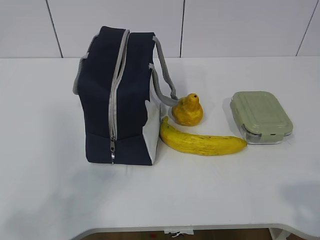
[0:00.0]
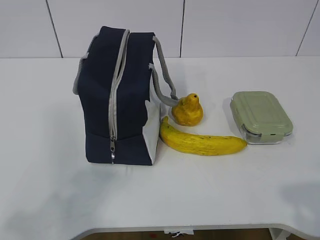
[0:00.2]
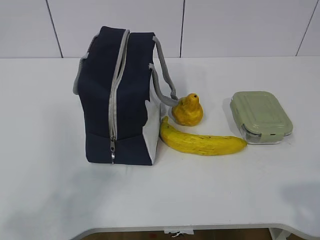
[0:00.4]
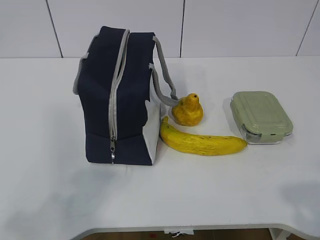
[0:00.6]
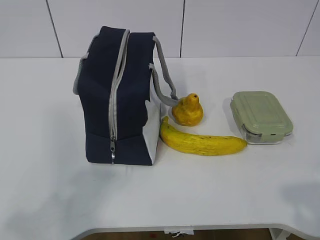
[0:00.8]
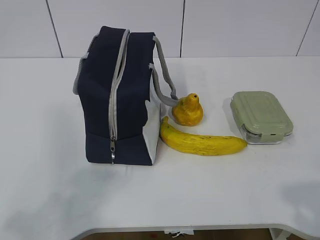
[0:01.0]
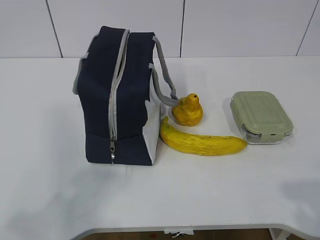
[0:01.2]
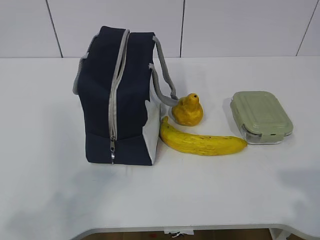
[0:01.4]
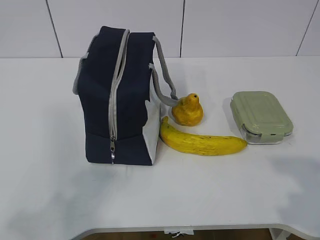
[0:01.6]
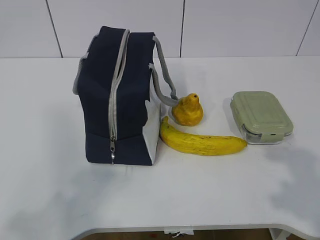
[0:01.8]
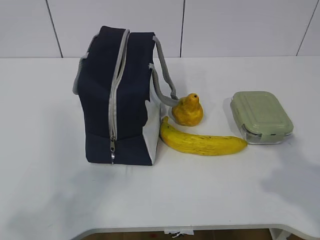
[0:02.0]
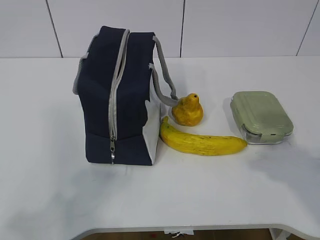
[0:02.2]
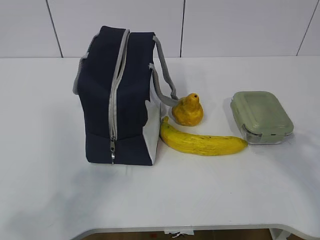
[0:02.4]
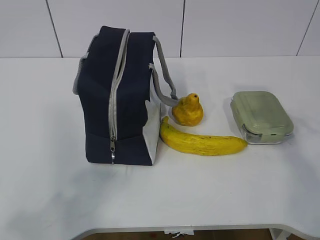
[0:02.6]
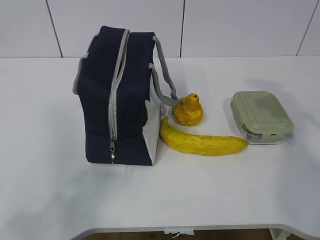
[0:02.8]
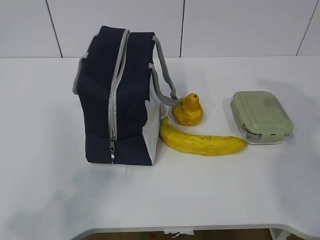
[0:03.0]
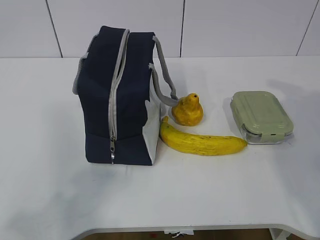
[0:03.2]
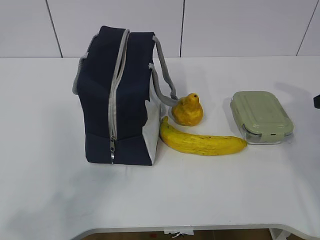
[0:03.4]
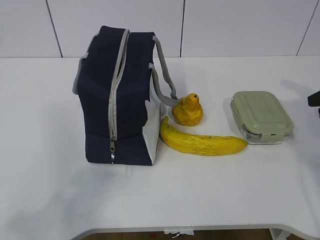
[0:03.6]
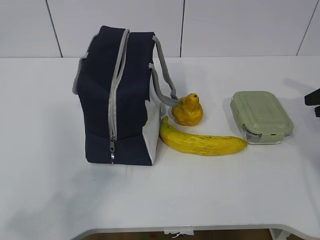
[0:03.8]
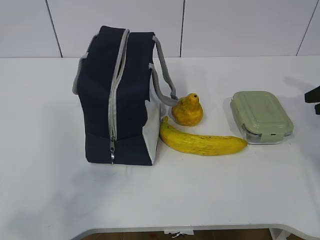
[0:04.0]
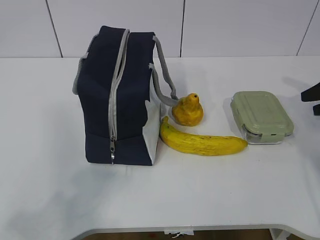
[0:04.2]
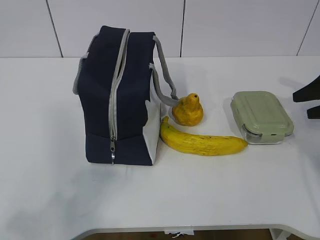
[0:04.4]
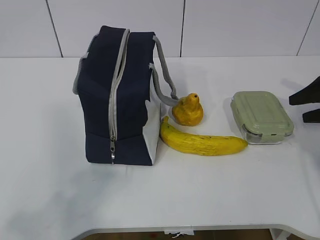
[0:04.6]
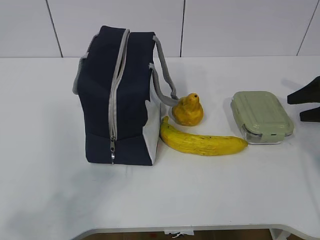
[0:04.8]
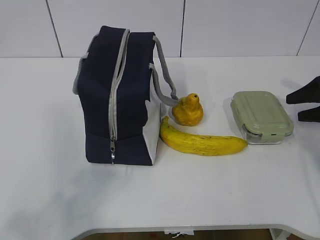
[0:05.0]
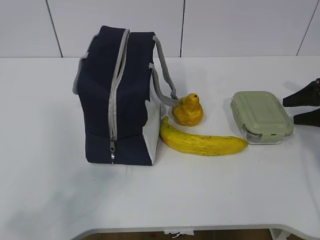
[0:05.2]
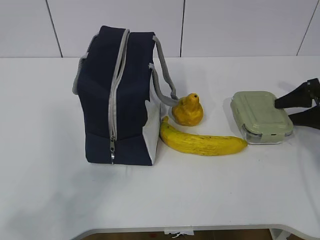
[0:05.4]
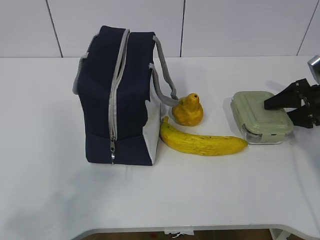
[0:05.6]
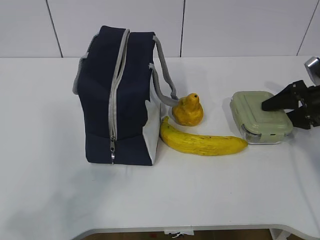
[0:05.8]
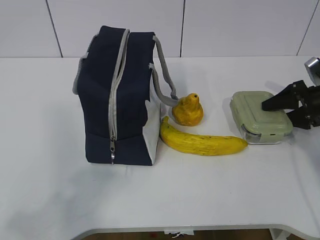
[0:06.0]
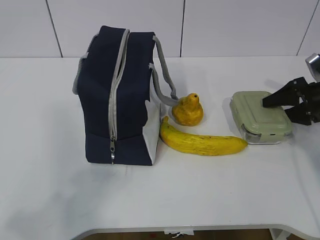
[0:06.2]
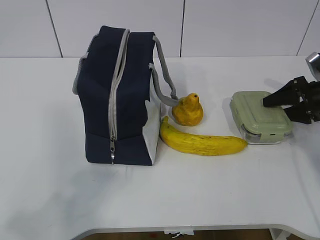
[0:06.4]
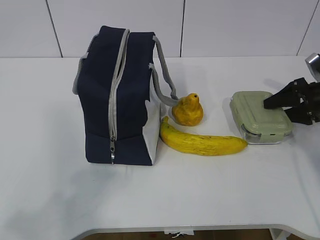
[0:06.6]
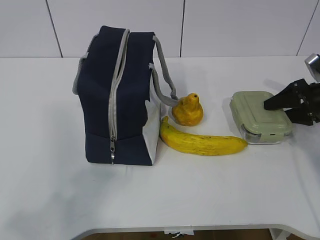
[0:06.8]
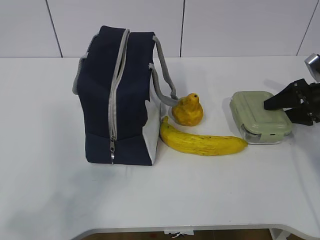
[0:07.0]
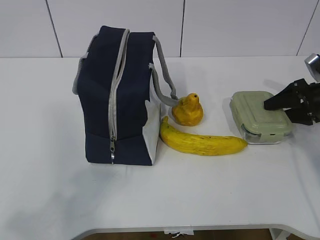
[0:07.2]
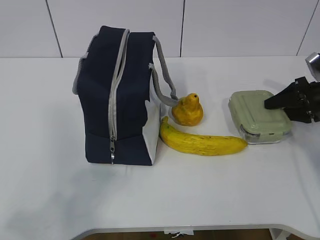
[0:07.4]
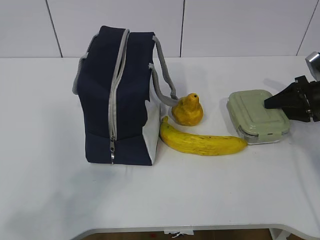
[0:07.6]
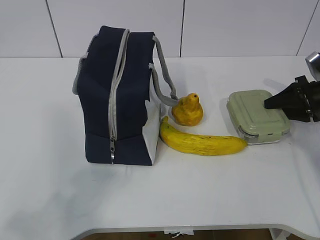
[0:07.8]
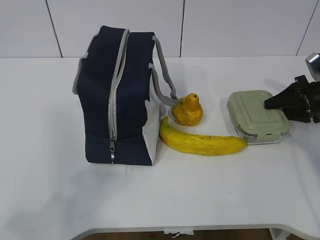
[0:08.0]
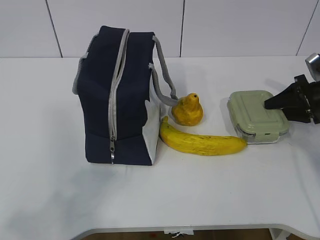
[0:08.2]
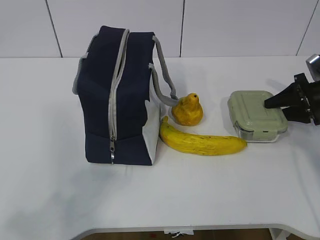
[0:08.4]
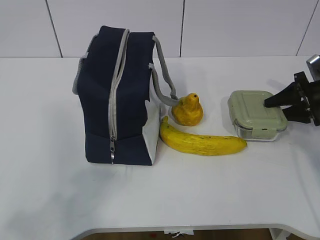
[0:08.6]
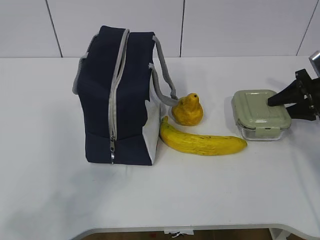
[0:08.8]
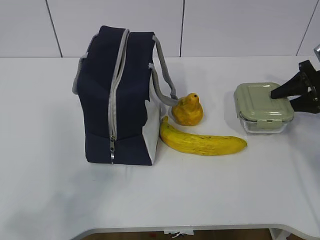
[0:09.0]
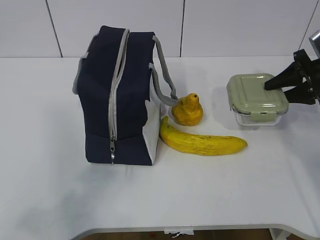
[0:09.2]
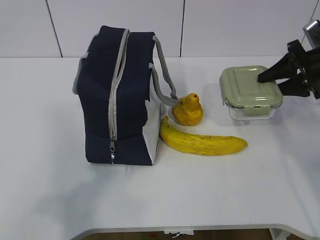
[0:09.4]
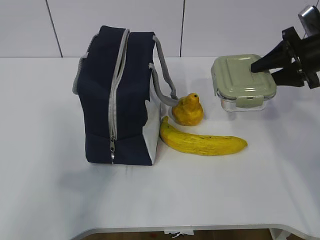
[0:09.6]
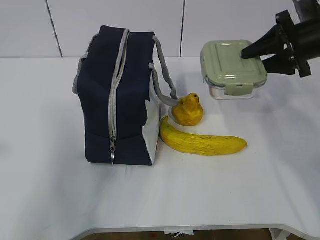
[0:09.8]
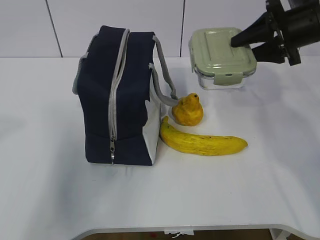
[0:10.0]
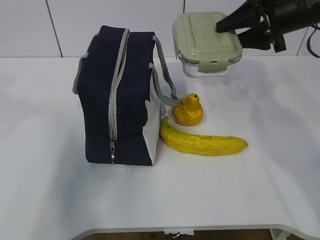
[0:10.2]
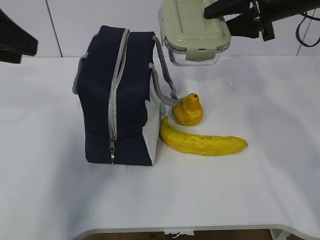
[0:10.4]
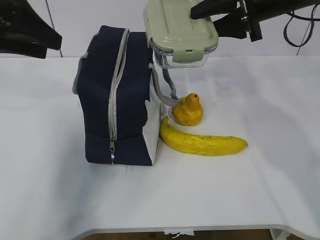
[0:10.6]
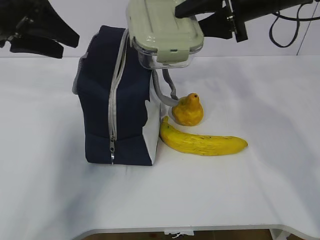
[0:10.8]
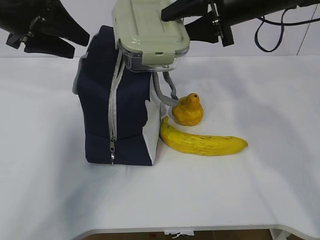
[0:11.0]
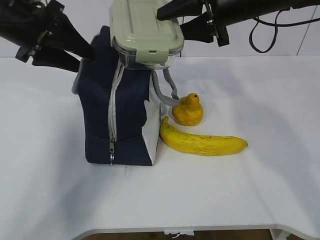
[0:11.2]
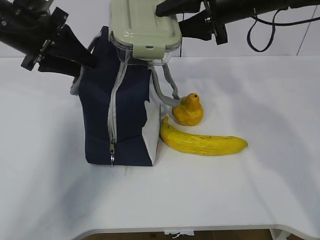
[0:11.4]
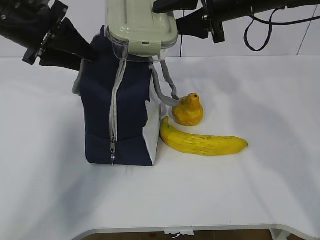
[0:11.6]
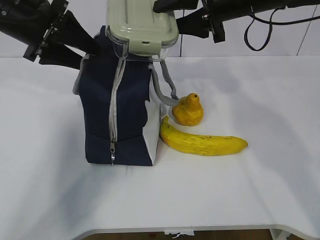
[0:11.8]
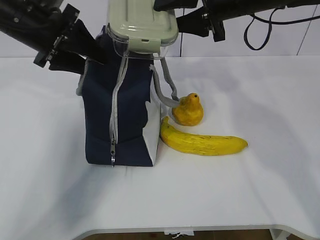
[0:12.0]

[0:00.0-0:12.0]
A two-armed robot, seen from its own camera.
Step, 0:00.0 to 0:07.4: Grasp the box with the right gripper.
0:01.6 to 0:03.0: The right gripper shifts some 25 cm forward.
0:03.0 to 0:04.4: The right gripper goes some 15 cm downward, forward and to the right.
0:04.4 to 0:06.0: The right gripper ends up roughly 5 cm from where it was.
0:06.0 to 0:07.6: Both grippers stay put.
0:07.6 to 0:09.0: The grippers move only a little.
0:09.0 to 0:10.4: The left gripper goes roughly 25 cm forward. Meanwhile the right gripper heads to the left and upward, covering roughly 20 cm.
0:10.4 to 0:12.0: The left gripper goes approximately 15 cm forward and downward. Meanwhile the right gripper moves to the left, about 5 cm.

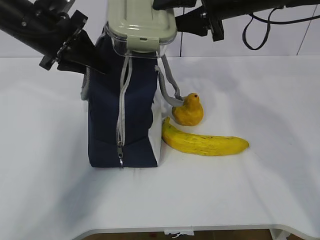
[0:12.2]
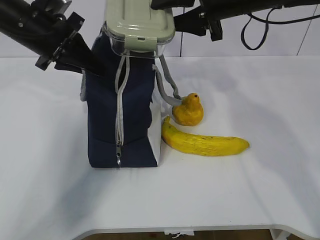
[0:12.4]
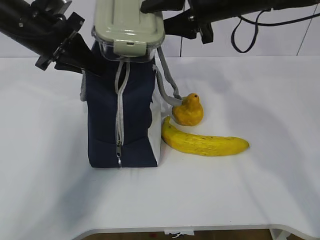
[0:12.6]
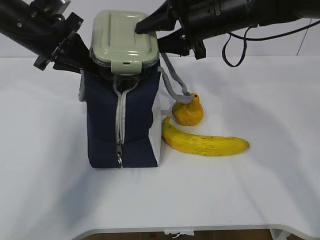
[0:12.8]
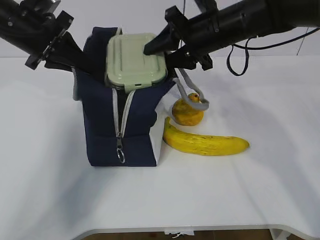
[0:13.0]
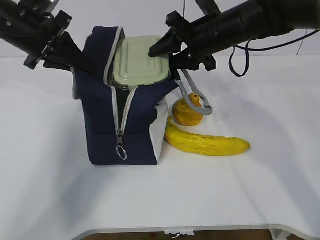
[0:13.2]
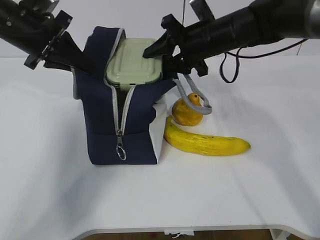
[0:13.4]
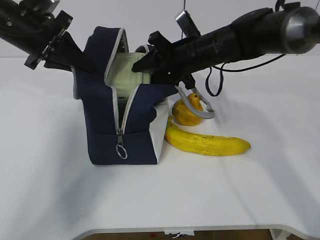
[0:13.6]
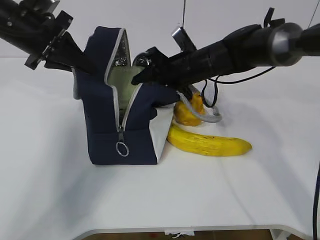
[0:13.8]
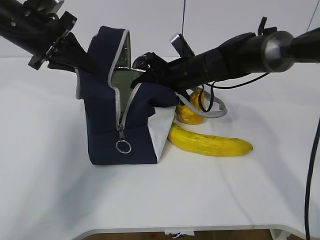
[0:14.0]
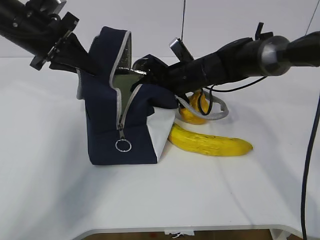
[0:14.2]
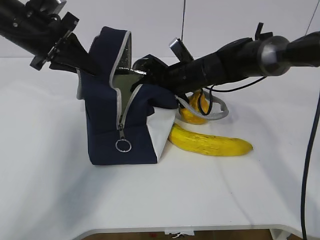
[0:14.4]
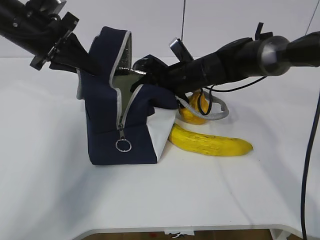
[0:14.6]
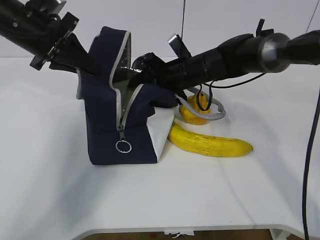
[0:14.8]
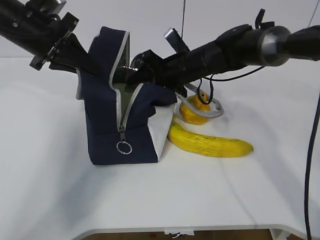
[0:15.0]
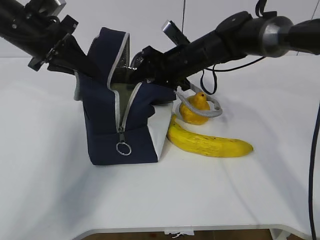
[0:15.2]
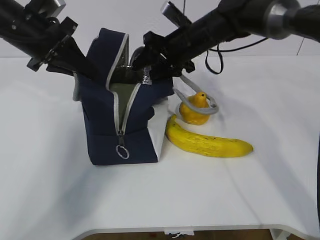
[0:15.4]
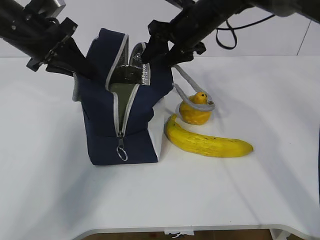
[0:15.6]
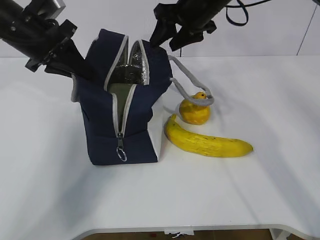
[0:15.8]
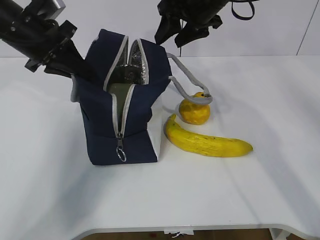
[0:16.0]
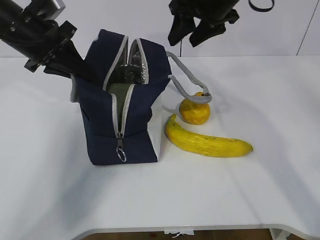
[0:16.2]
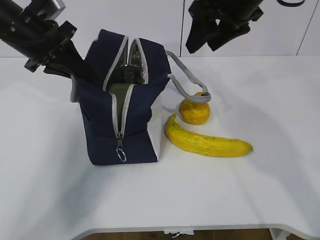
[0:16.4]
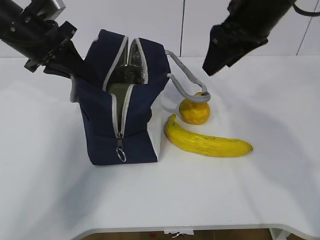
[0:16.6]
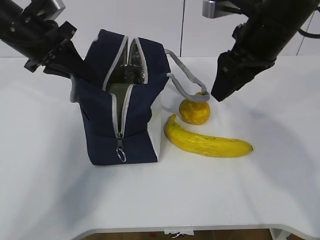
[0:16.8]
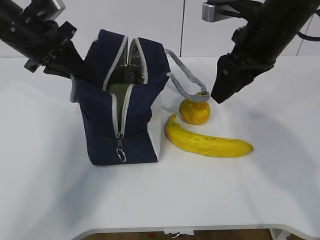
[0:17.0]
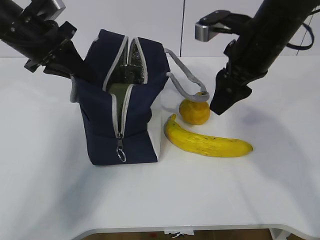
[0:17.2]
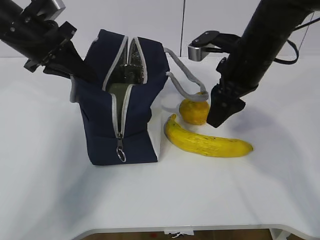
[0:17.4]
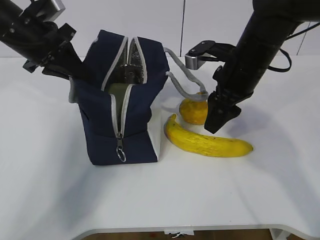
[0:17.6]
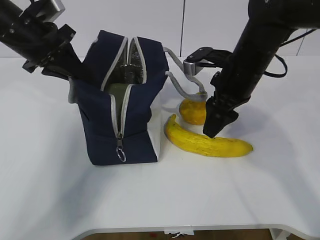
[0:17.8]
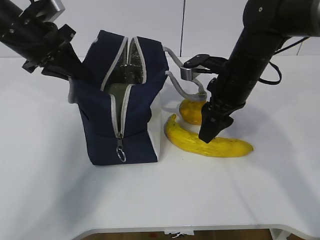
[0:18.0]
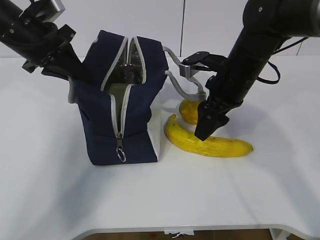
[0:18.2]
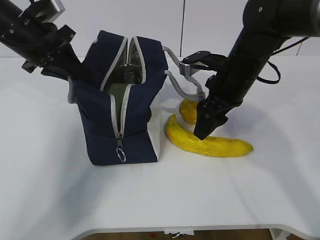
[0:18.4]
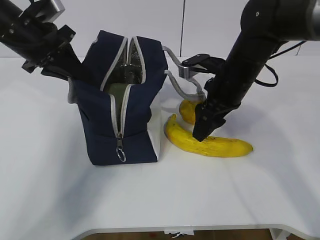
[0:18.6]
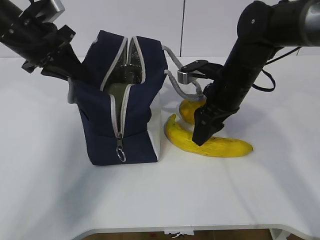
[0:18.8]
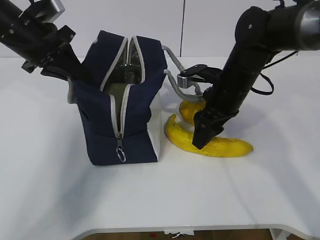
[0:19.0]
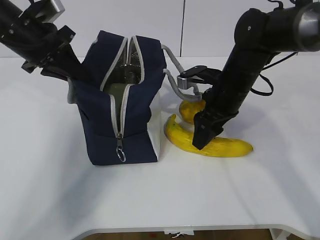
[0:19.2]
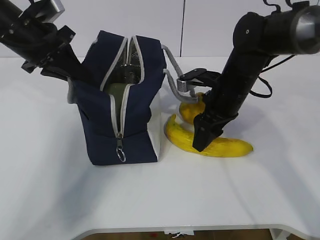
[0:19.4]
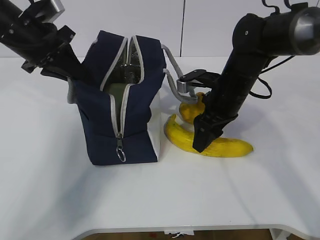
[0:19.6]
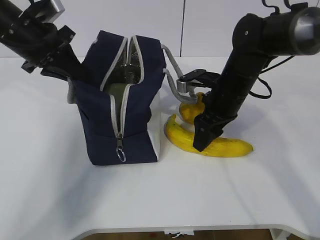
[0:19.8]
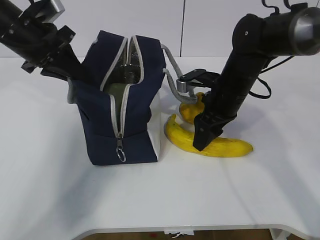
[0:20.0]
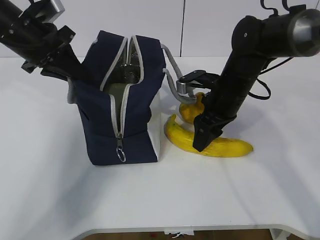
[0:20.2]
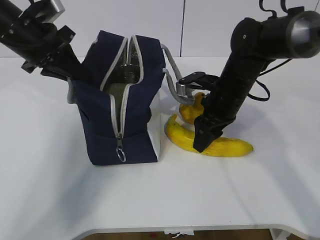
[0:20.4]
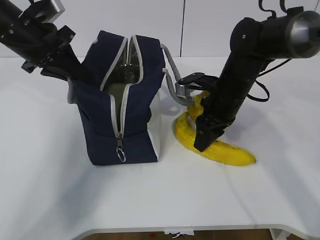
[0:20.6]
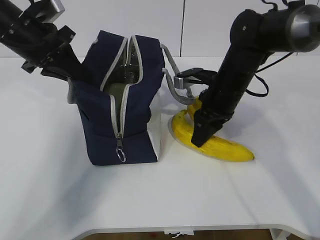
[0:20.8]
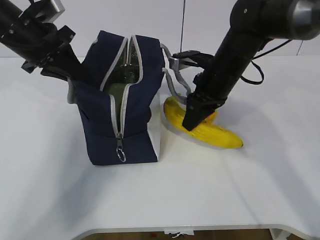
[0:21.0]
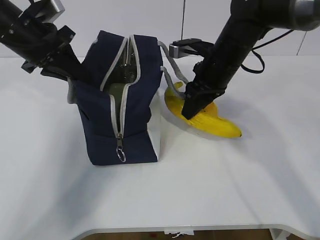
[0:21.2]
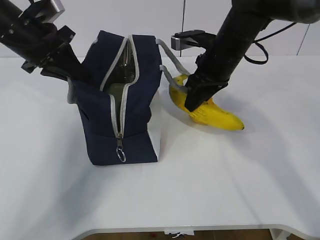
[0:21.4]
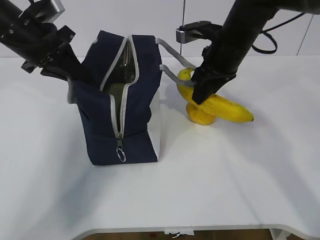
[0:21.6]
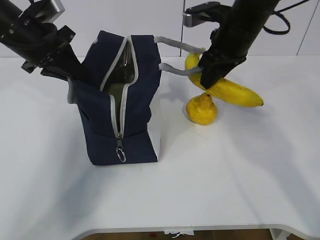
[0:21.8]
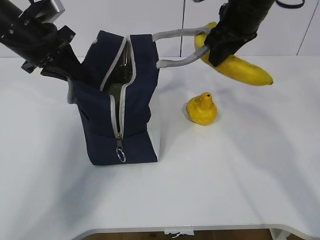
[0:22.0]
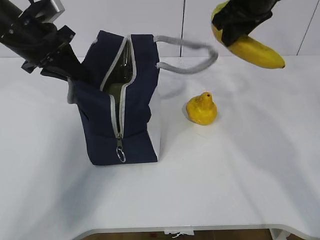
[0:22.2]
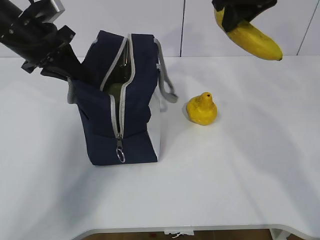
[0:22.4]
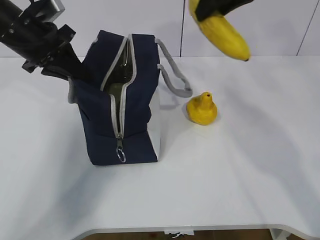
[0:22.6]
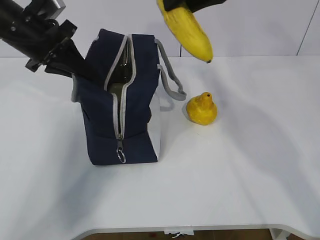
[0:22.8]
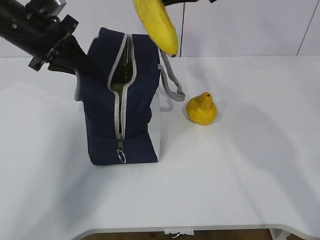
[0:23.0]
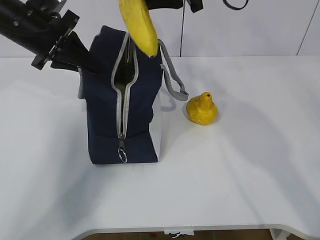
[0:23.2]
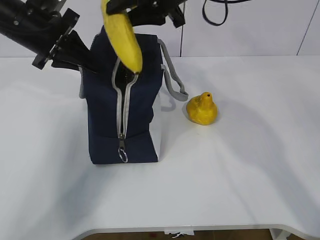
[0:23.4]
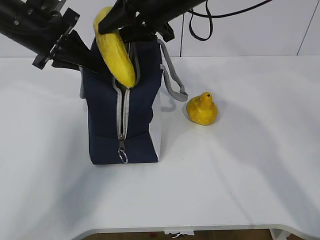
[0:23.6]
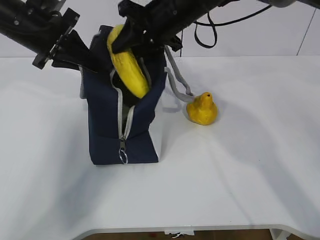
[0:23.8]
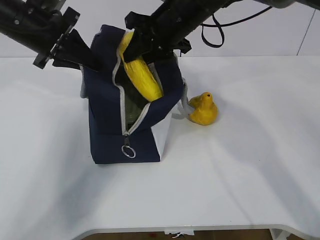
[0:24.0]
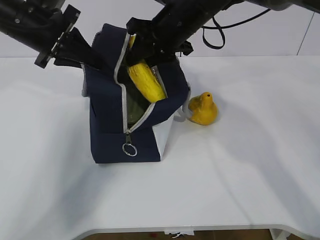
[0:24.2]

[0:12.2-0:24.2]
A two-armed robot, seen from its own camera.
Step, 0:12.2 to 0:15.6: Place the box into the package with the right gripper.
Step, 0:15.8 to 0:20.4: Grasp the banana with the right gripper.
0:12.2 to 0:13.8: The right gripper goes some 15 cm downward.
0:13.8 to 0:15.2: There are only small adjustments of the grippers.
0:15.2 to 0:16.6: The right gripper travels upward, backward and to the right by about 20 cm.
0:16.6 to 0:18.2: The right gripper travels downward by roughly 10 cm.
0:18.2 to 0:19.8: The grippers move only a little.
0:19.8 to 0:21.2: The right gripper shifts by approximately 5 cm, and closes up.
0:21.2 to 0:22.6: The right gripper moves upward, roughly 15 cm.
0:22.6 to 0:24.2: The right gripper moves downward and to the left, roughly 15 cm.
